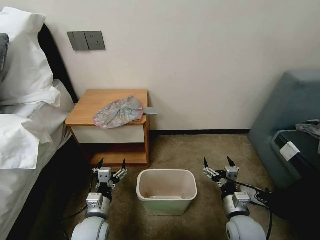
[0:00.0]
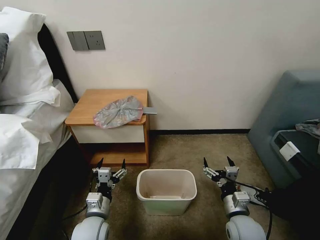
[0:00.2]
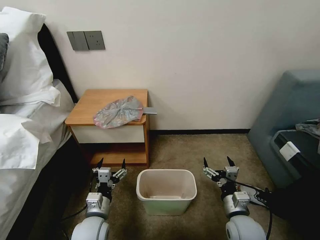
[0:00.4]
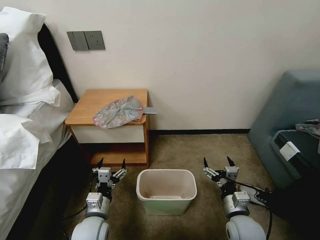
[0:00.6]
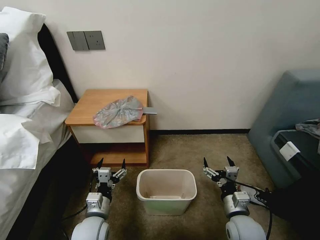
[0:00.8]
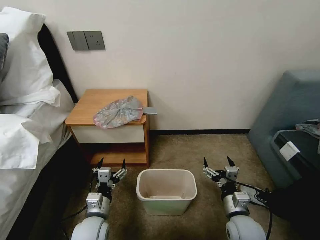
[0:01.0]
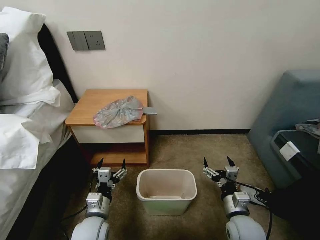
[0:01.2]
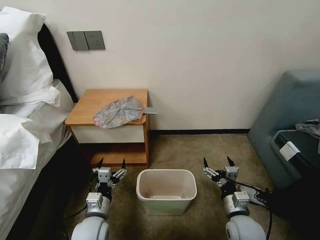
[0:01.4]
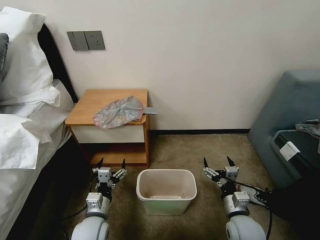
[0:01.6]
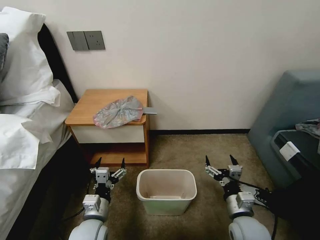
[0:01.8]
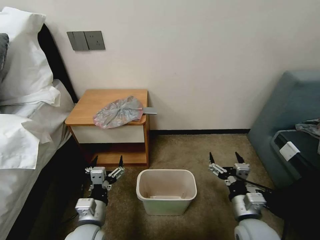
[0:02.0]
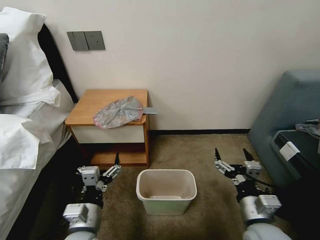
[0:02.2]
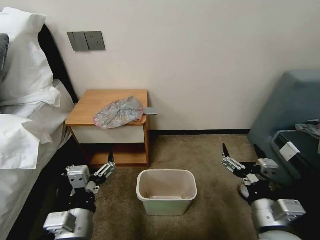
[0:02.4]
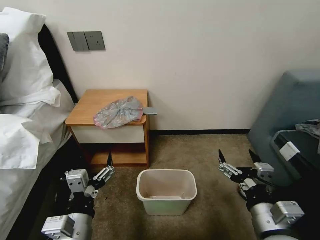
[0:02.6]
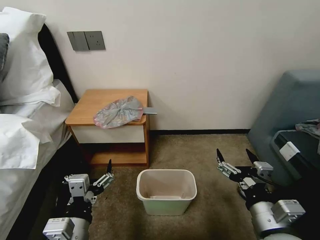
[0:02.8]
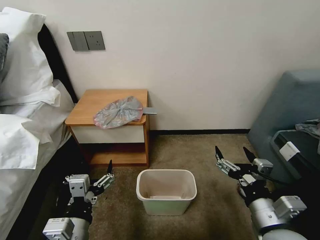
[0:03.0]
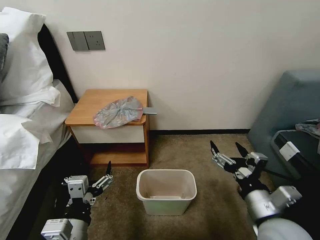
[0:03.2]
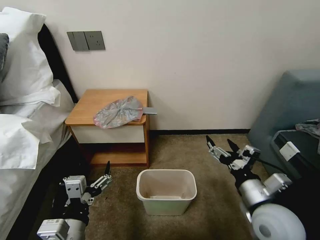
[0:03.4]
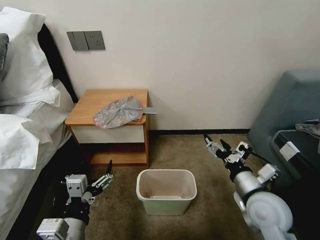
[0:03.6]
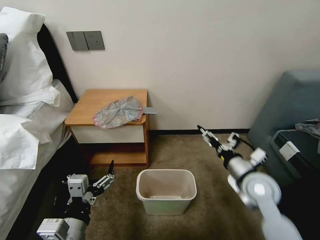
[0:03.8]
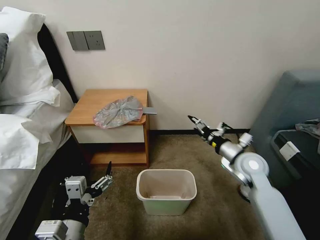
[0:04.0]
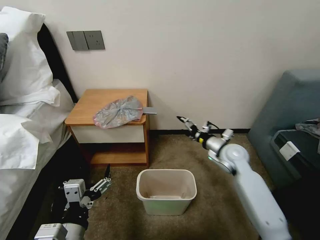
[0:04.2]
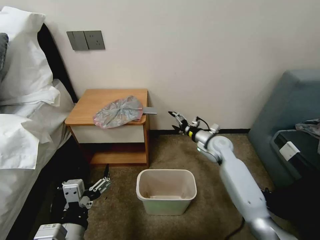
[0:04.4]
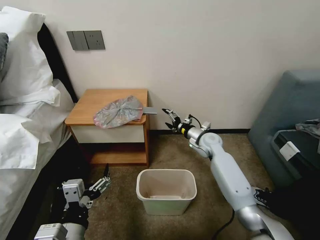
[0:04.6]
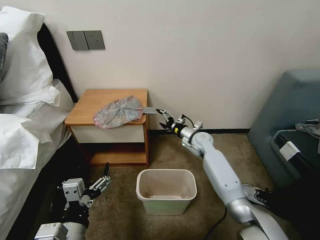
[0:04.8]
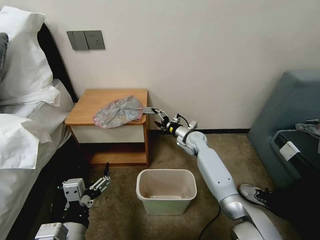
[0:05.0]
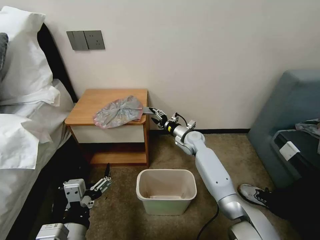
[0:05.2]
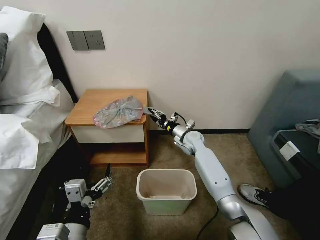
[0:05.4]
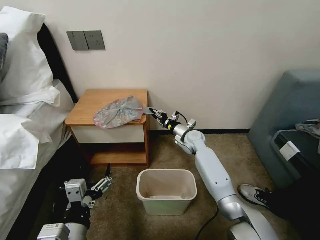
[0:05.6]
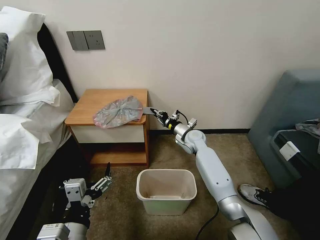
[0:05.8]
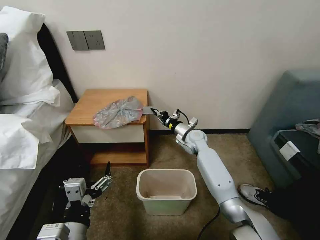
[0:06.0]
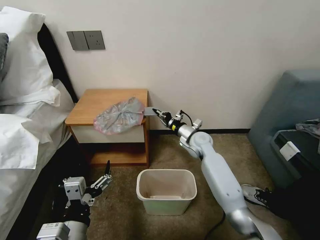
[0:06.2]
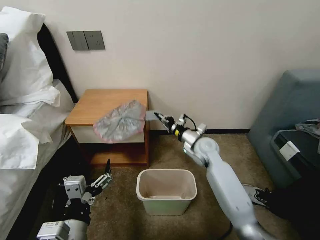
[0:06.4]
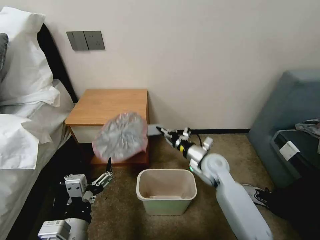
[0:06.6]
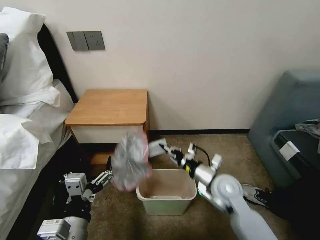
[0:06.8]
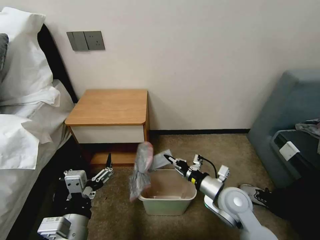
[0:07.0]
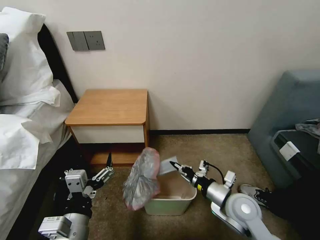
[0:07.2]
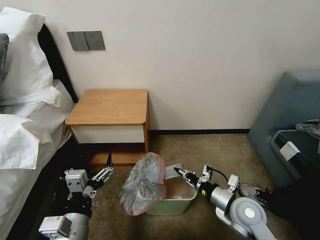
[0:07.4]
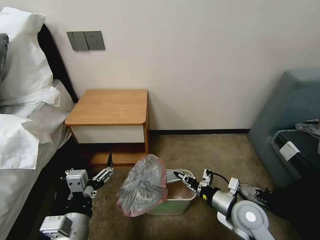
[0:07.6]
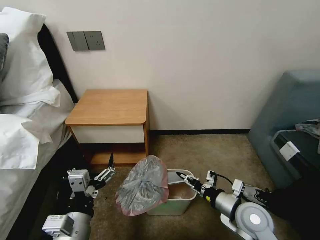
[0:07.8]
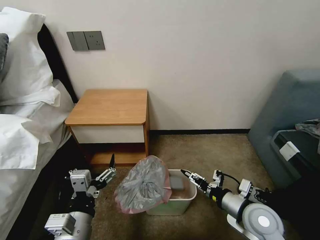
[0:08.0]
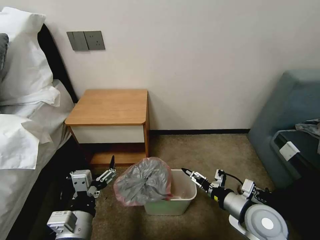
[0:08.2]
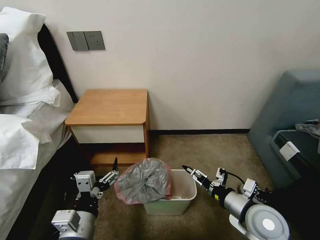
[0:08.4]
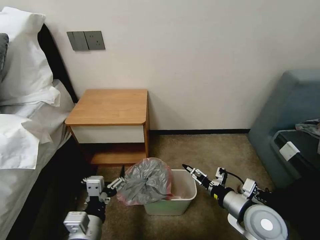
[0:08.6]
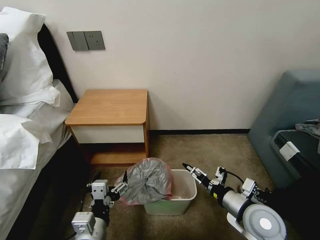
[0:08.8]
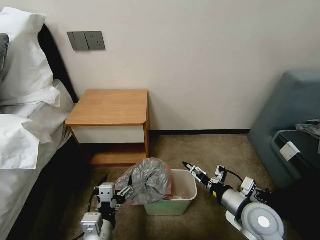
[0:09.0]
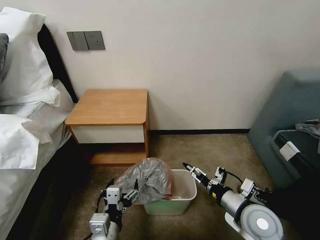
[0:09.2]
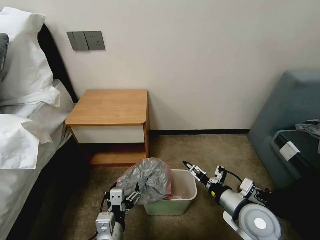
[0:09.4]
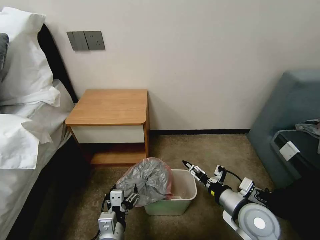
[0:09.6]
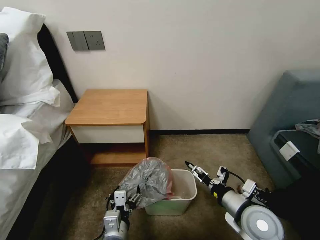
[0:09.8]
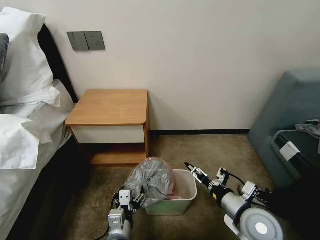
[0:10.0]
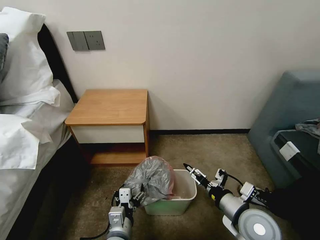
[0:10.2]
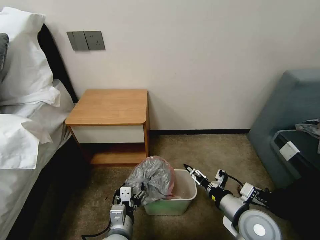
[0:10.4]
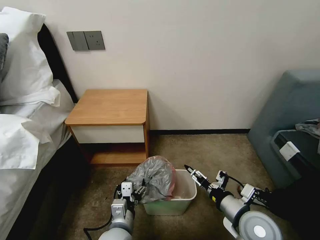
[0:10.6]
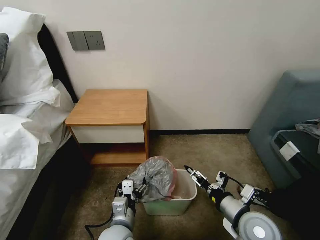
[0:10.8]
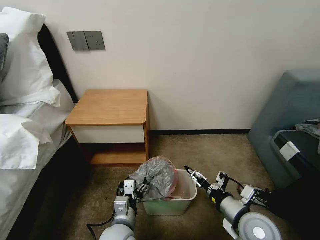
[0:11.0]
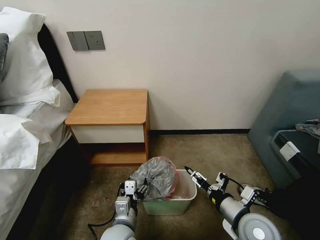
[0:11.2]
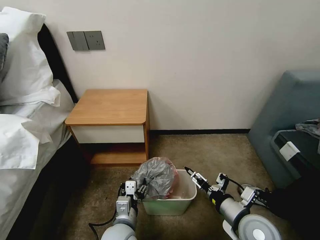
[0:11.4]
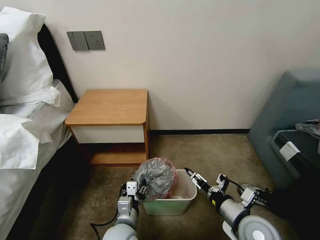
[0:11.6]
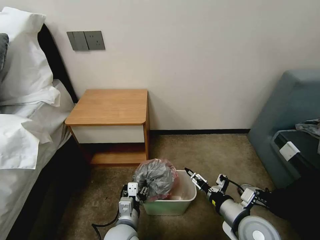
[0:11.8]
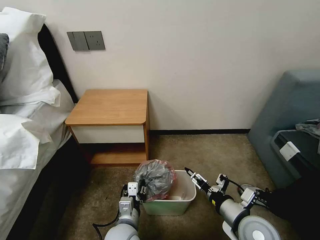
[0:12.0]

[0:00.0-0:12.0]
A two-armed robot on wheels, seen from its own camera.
Task of the whole recording: Pick up the garbage bag from the table and place it over the trash can.
0:01.6 to 0:03.0: Both grippers travel together upward and backward, approximately 15 cm.
0:03.0 to 0:04.4: The right gripper heads forward, covering roughly 35 cm.
0:04.4 to 0:06.0: The right gripper travels to the left and forward by roughly 10 cm, and closes up.
0:06.0 to 0:07.6: The right gripper goes roughly 30 cm backward.
0:07.6 to 0:09.0: The right gripper opens its fingers. The left gripper shifts by roughly 5 cm.
0:09.0 to 0:10.4: The left gripper heads downward, covering about 5 cm.
0:10.4 to 0:12.0: The left gripper closes.

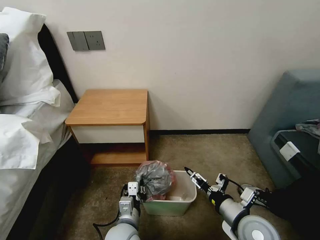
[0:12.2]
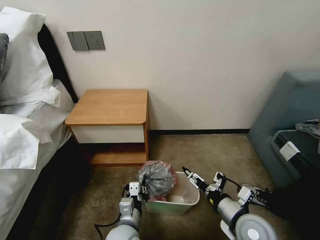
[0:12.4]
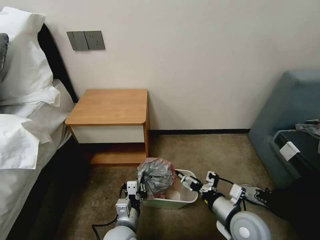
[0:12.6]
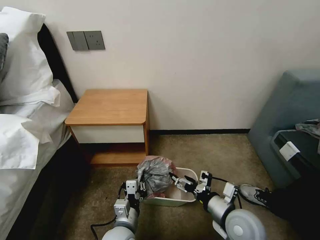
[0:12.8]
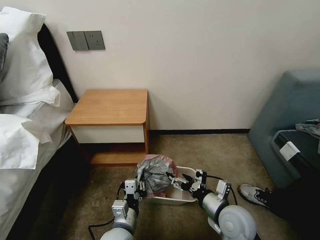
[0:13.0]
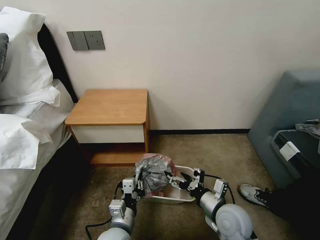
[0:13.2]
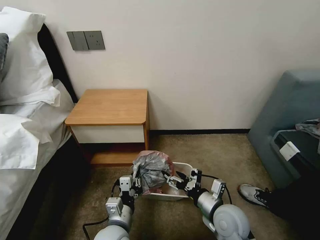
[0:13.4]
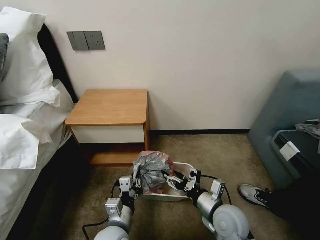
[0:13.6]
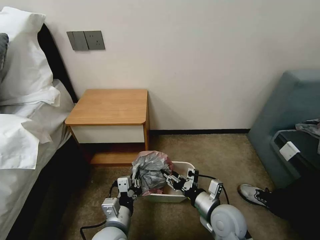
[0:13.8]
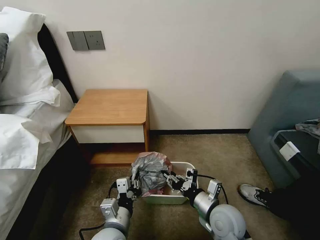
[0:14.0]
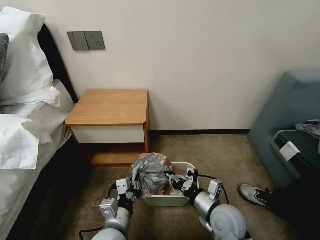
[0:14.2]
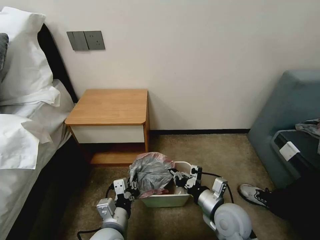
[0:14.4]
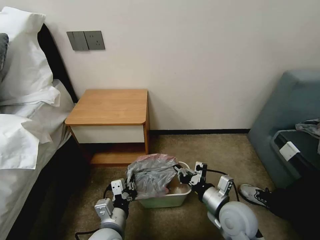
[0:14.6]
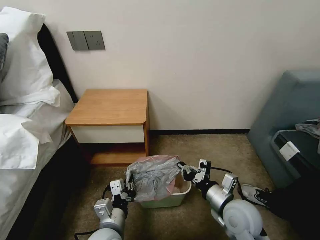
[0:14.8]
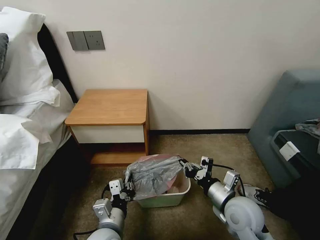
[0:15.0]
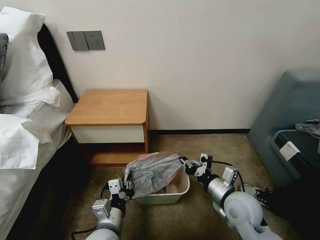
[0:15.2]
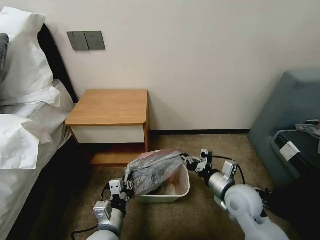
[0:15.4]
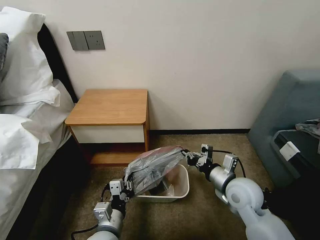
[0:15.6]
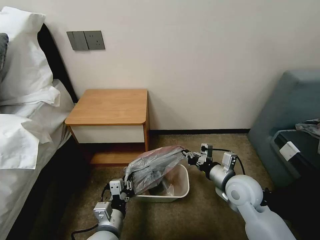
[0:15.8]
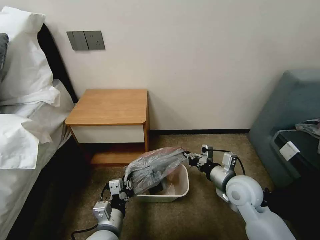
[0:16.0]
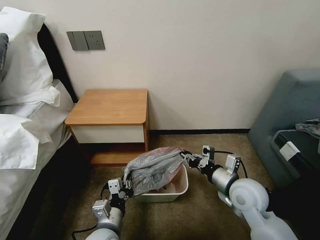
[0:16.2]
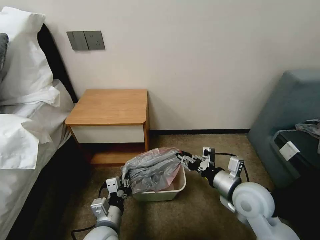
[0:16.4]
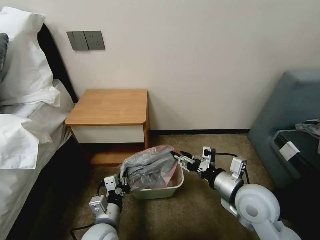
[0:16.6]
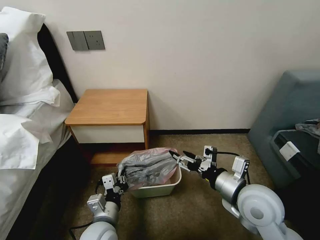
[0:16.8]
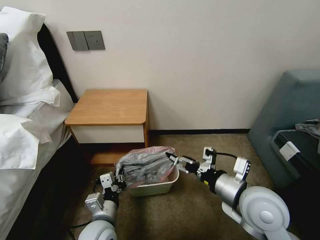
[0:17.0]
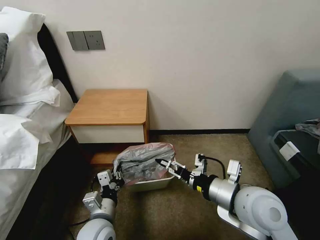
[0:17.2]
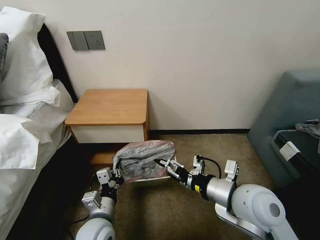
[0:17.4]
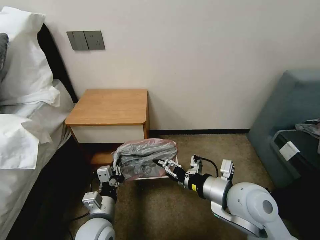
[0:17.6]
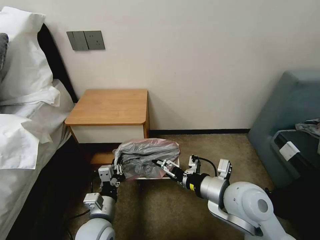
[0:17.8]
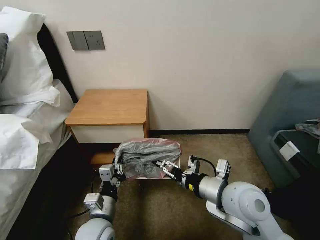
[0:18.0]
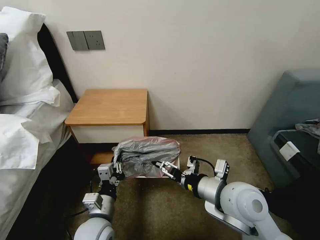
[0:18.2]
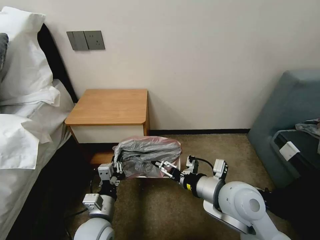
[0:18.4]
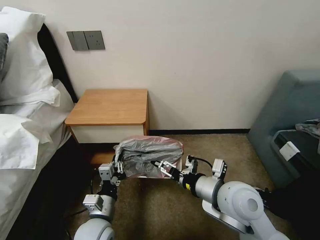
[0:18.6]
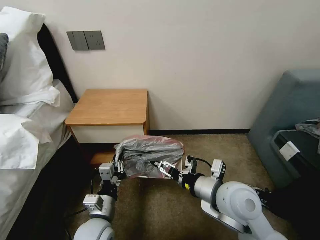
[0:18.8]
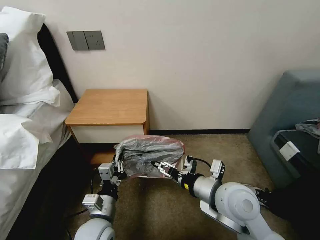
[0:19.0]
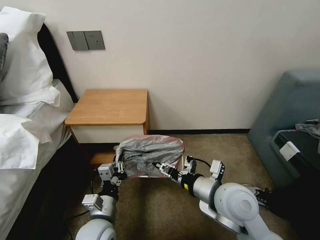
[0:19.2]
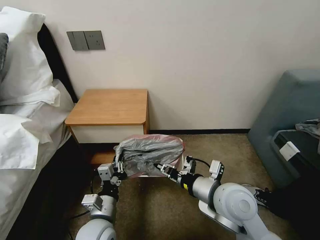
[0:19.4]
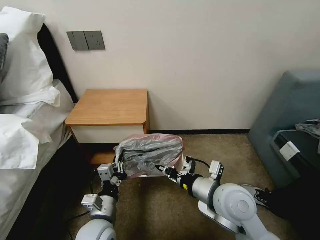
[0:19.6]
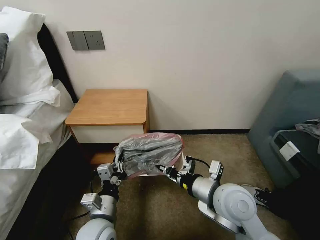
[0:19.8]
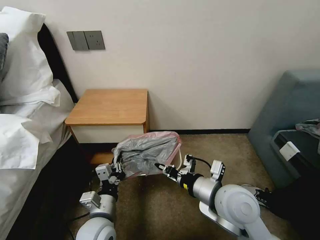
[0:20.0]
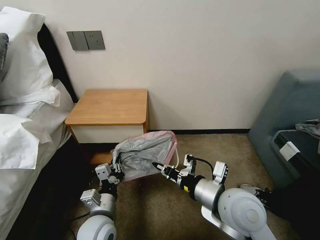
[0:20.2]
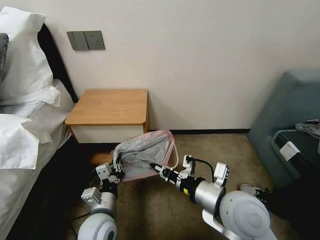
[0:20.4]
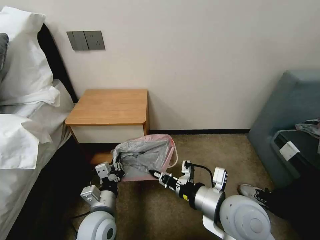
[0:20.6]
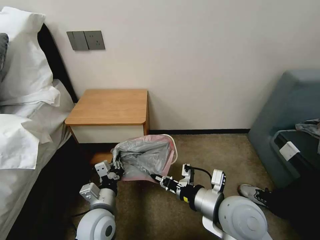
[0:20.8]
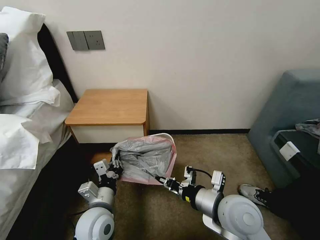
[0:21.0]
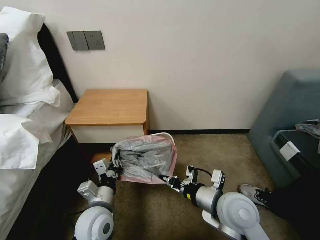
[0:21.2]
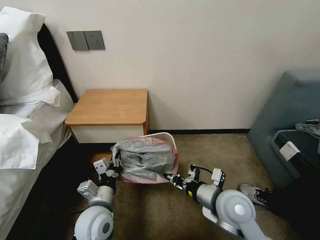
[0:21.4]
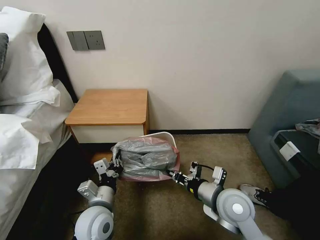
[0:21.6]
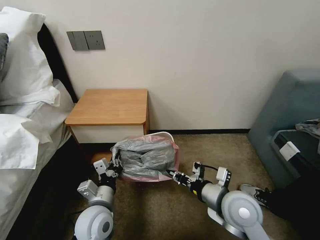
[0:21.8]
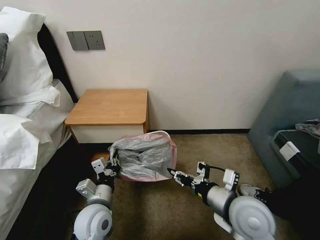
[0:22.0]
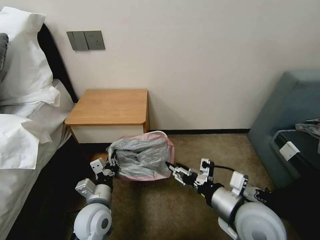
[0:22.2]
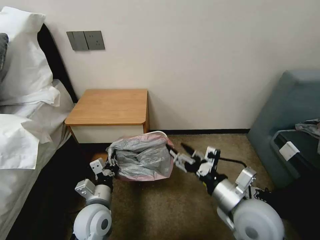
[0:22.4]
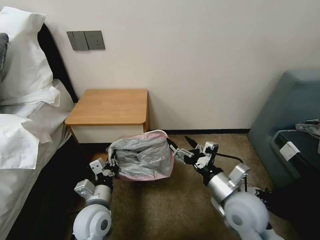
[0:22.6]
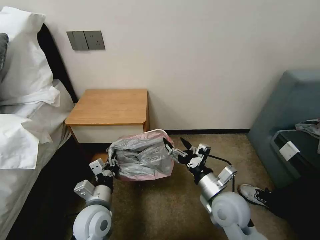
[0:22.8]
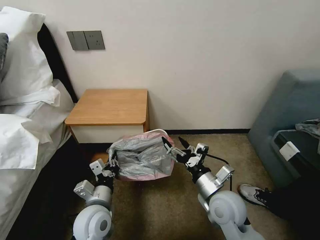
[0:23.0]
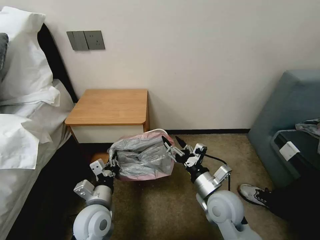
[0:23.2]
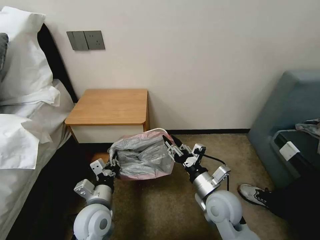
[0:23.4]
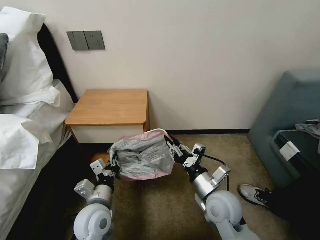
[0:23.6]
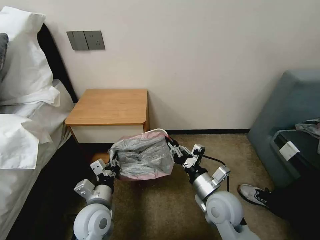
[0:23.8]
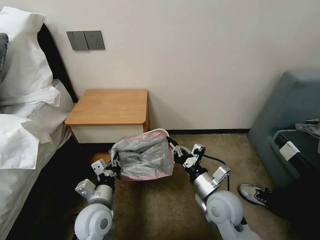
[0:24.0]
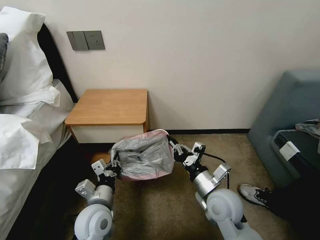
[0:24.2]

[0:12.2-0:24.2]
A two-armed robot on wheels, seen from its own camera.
Task of the whole recording: Pick up the garbage bag from the table and place it over the trash can.
0:12.2 to 0:13.8: The right gripper travels to the left by about 5 cm, and closes its fingers.
0:13.8 to 0:15.2: The right gripper shifts by roughly 5 cm, and closes up.
0:15.2 to 0:16.6: The right gripper shifts roughly 5 cm upward, and opens its fingers.
0:16.6 to 0:18.2: The right gripper ends up some 5 cm from where it was, and opens up.
0:18.2 to 0:19.8: The right gripper closes up.
0:19.8 to 0:21.2: The grippers stay close to where they were, moving slightly.
0:21.2 to 0:22.6: The right gripper opens.
0:22.6 to 0:24.2: The right gripper changes place by roughly 5 cm, and closes up.
